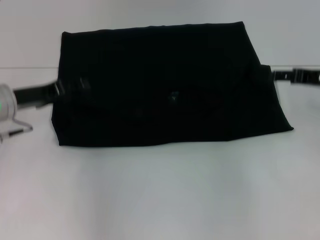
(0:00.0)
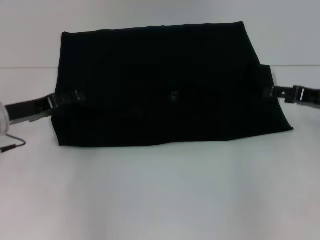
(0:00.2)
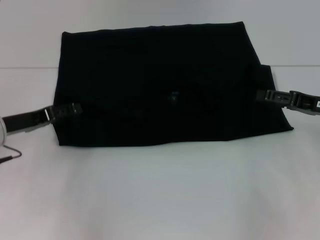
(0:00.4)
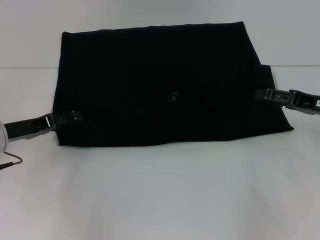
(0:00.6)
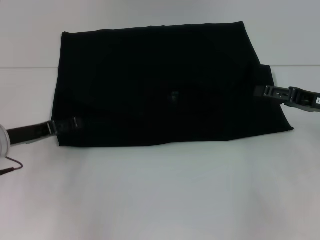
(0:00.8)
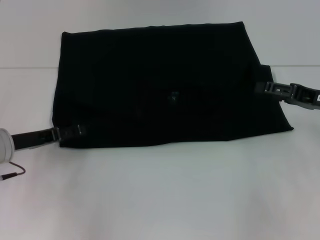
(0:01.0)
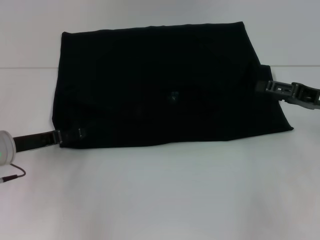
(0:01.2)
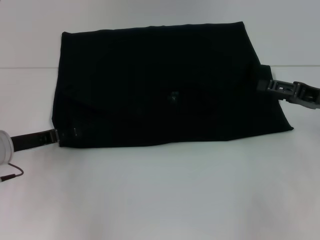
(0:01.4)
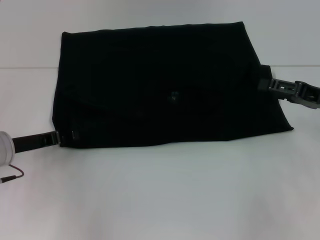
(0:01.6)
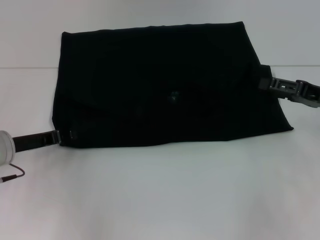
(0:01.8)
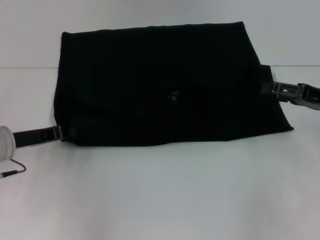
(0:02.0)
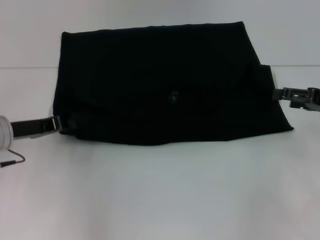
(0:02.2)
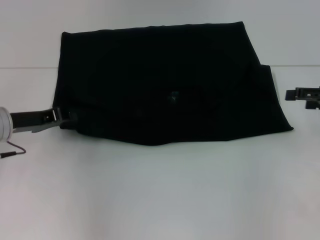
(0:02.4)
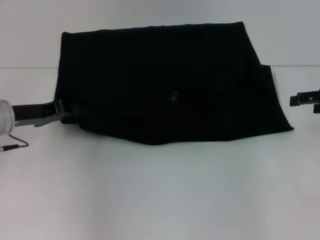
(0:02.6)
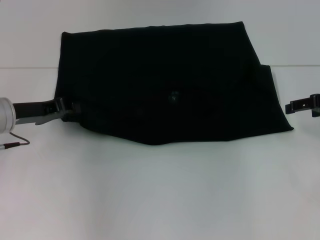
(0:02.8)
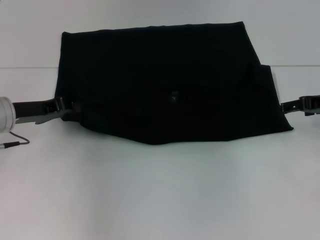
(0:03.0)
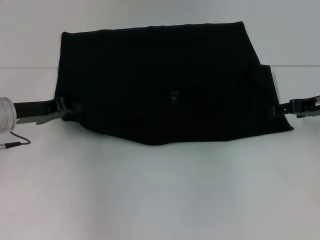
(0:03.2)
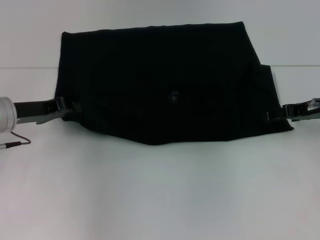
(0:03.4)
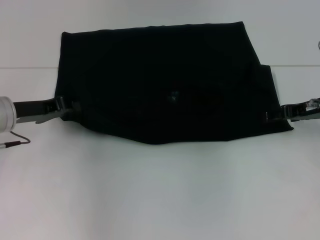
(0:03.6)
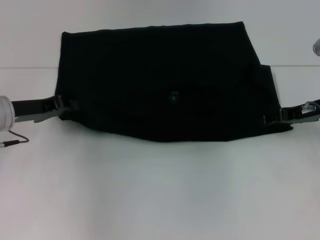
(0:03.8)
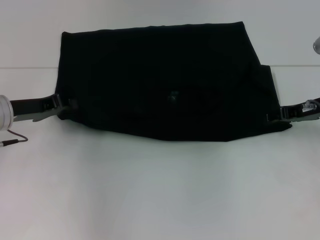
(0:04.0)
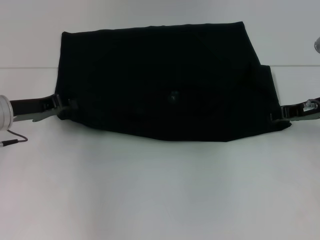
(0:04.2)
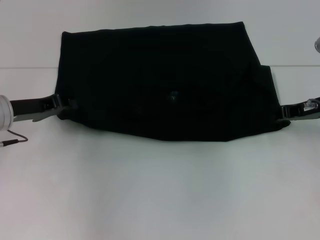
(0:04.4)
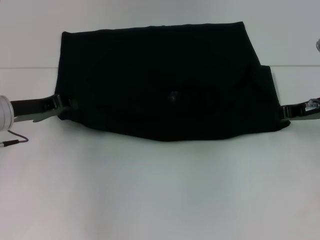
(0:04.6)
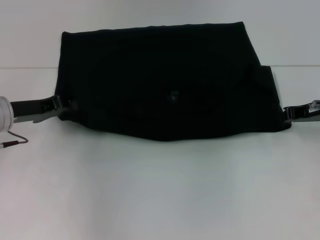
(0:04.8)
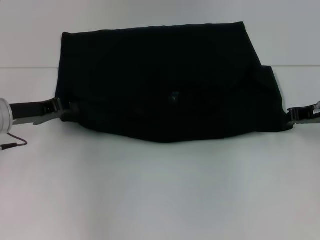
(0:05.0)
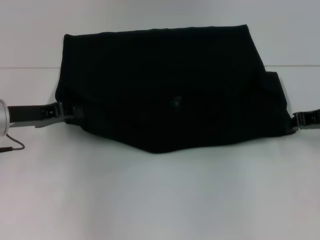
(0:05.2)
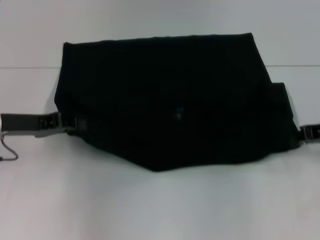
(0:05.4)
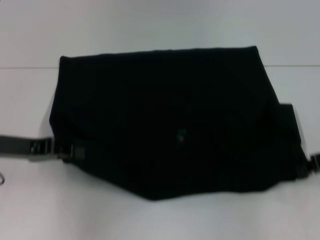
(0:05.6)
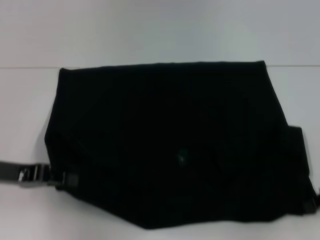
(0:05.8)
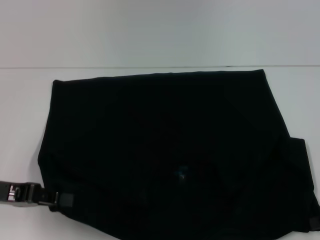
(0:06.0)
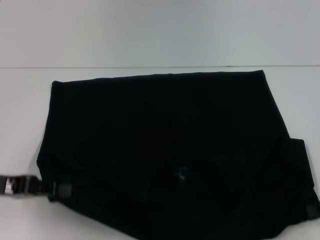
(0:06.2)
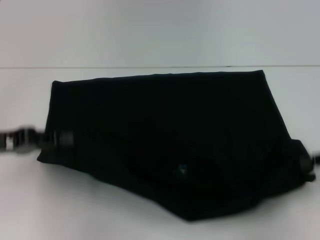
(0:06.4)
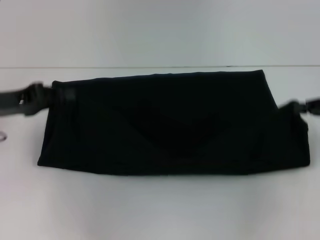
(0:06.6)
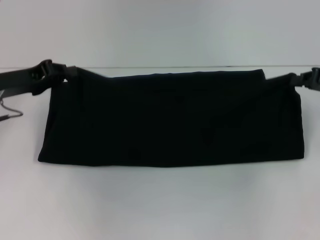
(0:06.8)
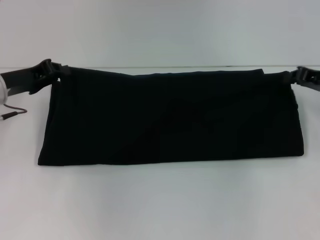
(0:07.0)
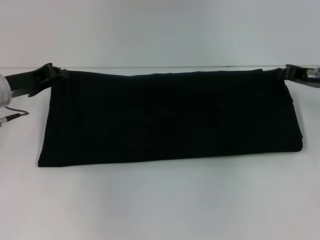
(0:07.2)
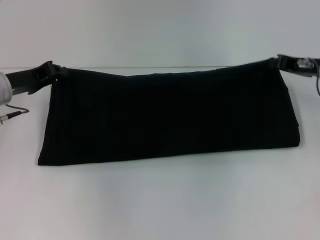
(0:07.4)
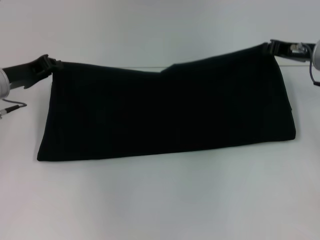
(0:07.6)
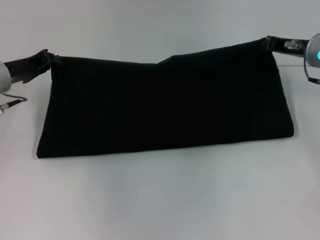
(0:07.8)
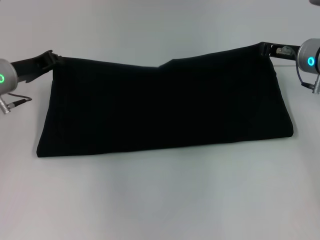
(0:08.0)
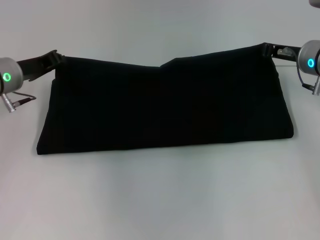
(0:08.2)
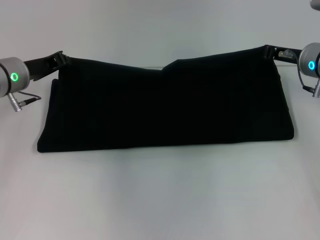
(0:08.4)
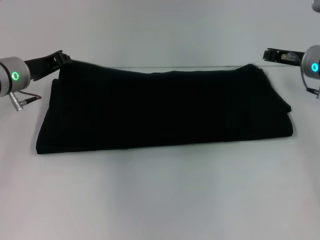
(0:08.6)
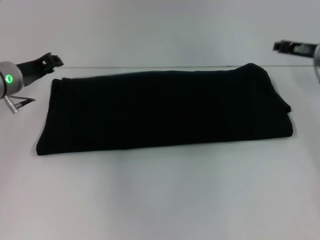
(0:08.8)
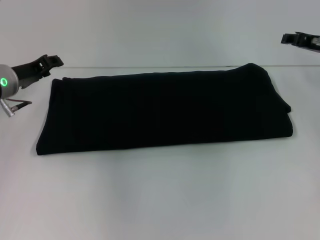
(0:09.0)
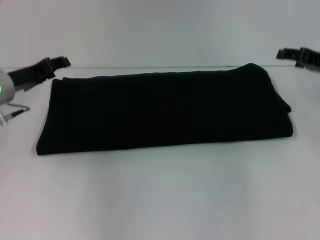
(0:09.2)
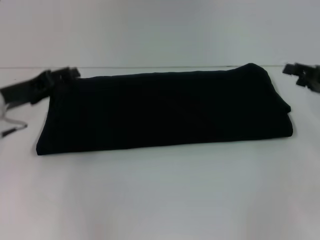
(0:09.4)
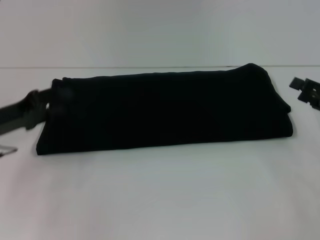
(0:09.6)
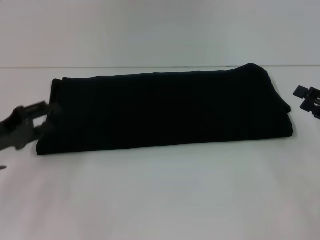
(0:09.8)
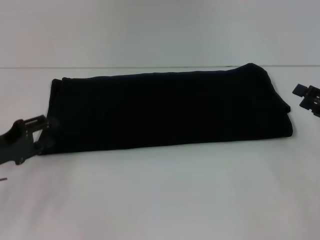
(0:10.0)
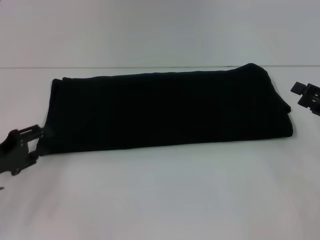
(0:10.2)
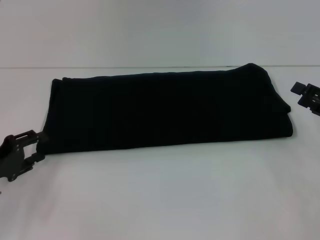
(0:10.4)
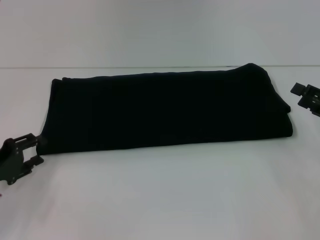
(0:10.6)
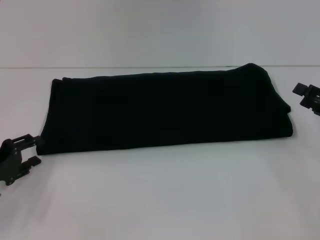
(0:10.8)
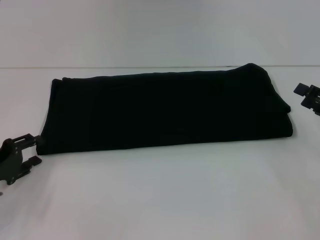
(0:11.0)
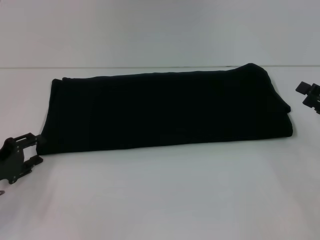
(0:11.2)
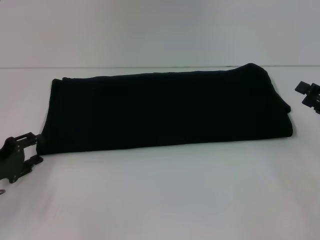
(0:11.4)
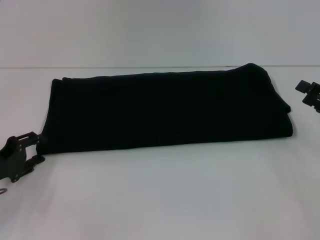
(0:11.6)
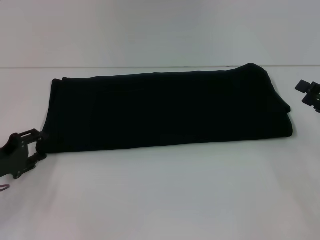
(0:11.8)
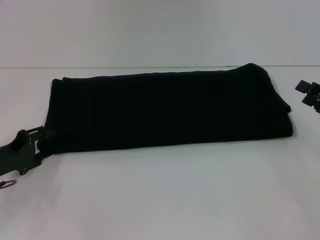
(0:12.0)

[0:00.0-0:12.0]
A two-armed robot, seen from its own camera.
Step, 0:00.6 to 0:05.8: Pull the clothes with your left hand.
Step, 0:00.6 to 0:05.8: Pull the clothes with your right hand.
Step, 0:06.0 to 0:08.6: Fold the clothes with your right hand.
0:00.0 to 0:01.6: The left gripper is displaced downward by some 5 cm; the right gripper moves some 5 cm.
0:01.6 to 0:03.0: The right gripper moves approximately 5 cm. Meanwhile the left gripper changes place by approximately 5 cm, and closes up.
0:03.0 to 0:04.4: The right gripper closes.
0:04.4 to 0:06.0: The right gripper heads backward and to the right, covering roughly 15 cm, and closes its fingers, while the left gripper goes some 10 cm backward.
0:06.0 to 0:07.6: The left gripper travels forward by approximately 15 cm, while the right gripper heads forward and to the left, covering some 20 cm.
0:07.6 to 0:09.0: There are only small adjustments of the grippers.
0:09.0 to 0:10.4: The two grippers go roughly 15 cm backward and downward. The left gripper opens up. Meanwhile the right gripper opens its fingers.
0:10.4 to 0:12.0: The grippers move only a little.

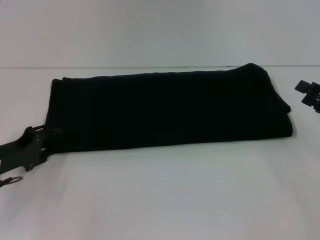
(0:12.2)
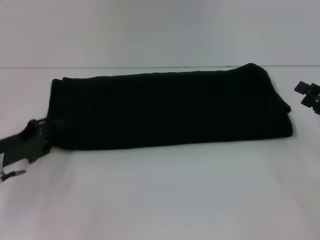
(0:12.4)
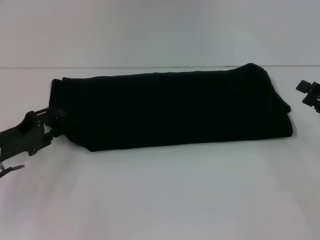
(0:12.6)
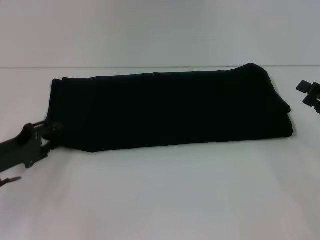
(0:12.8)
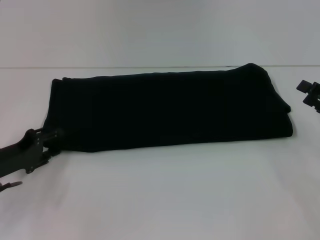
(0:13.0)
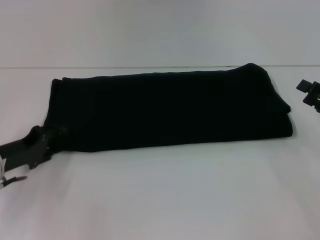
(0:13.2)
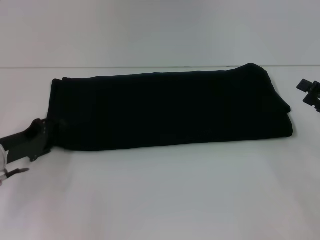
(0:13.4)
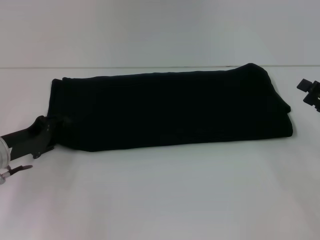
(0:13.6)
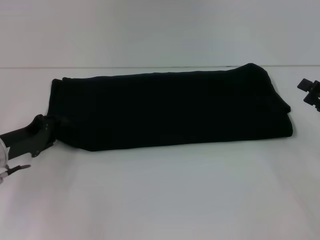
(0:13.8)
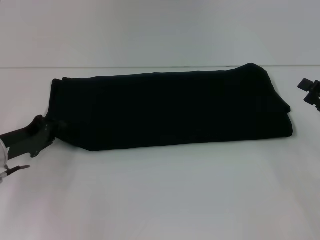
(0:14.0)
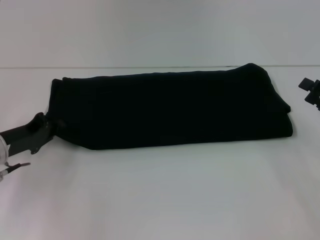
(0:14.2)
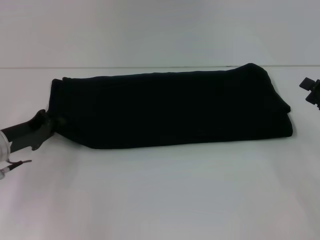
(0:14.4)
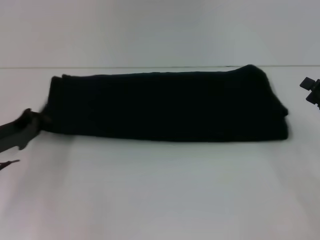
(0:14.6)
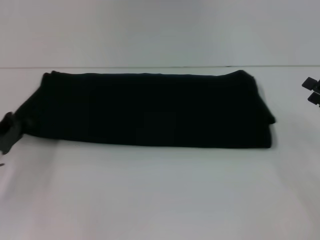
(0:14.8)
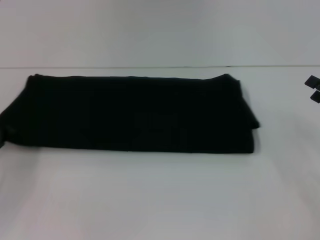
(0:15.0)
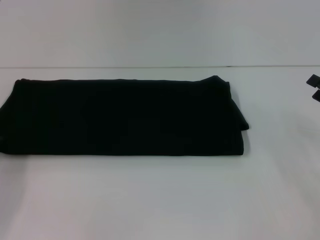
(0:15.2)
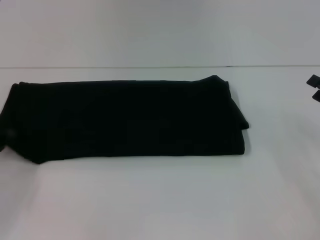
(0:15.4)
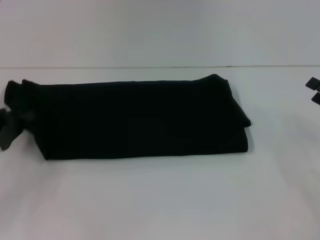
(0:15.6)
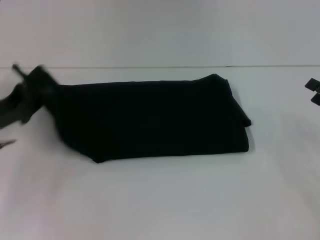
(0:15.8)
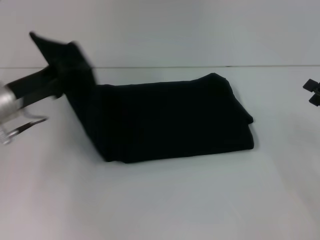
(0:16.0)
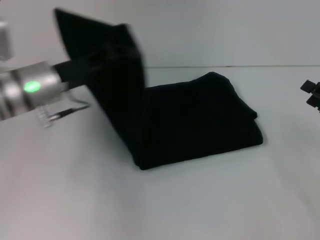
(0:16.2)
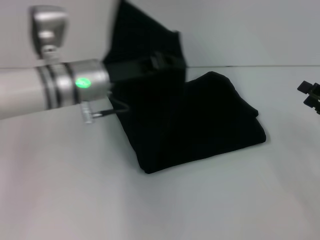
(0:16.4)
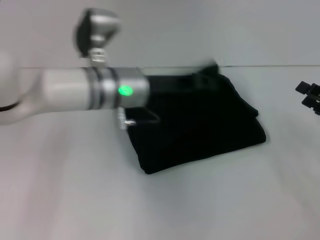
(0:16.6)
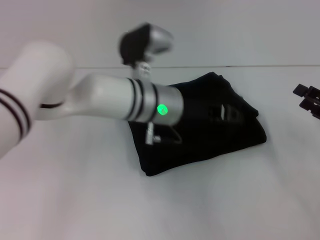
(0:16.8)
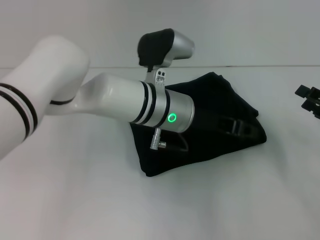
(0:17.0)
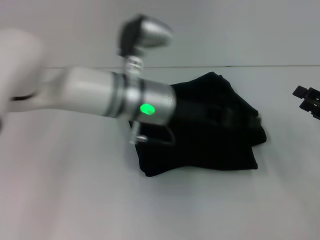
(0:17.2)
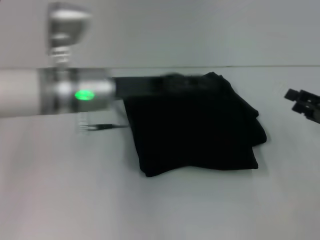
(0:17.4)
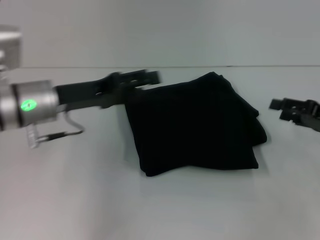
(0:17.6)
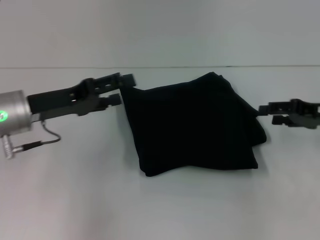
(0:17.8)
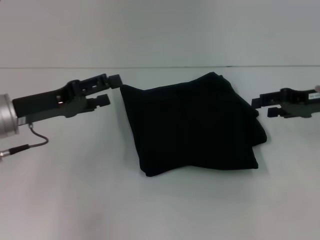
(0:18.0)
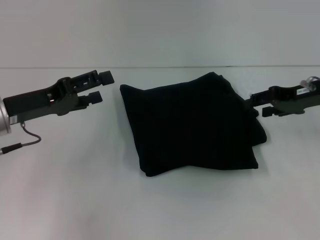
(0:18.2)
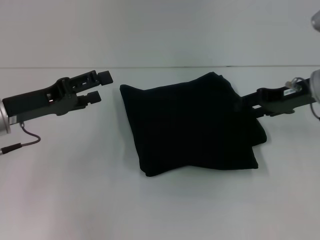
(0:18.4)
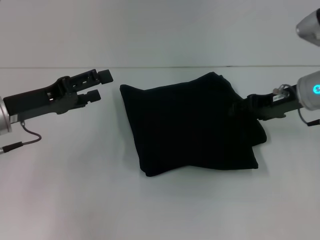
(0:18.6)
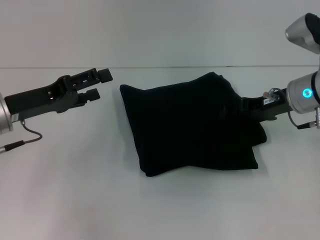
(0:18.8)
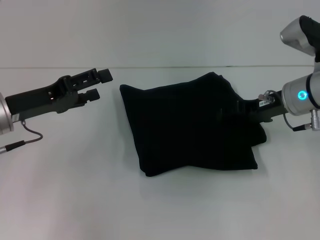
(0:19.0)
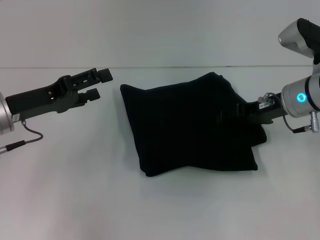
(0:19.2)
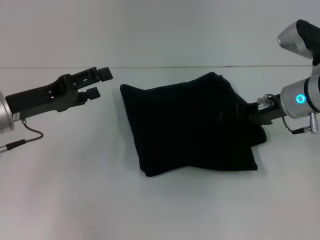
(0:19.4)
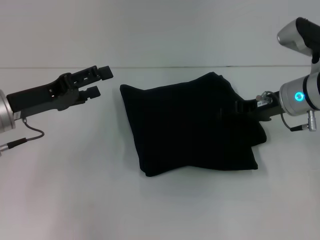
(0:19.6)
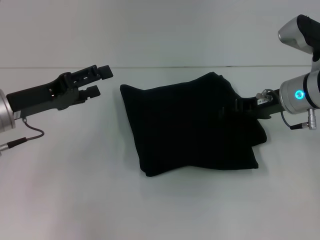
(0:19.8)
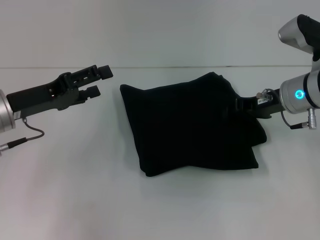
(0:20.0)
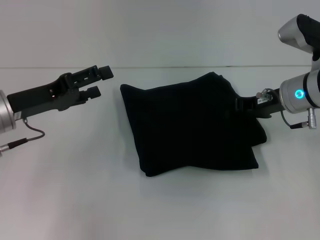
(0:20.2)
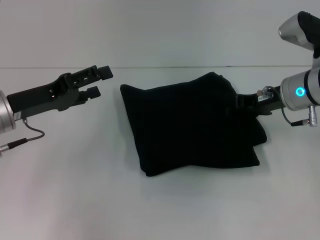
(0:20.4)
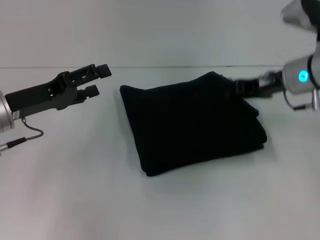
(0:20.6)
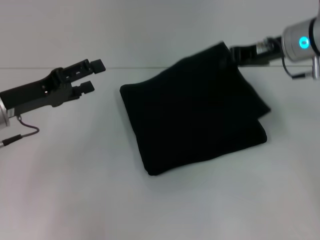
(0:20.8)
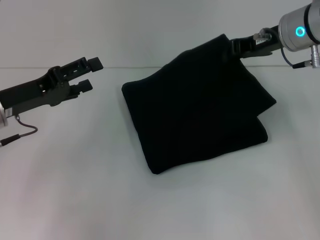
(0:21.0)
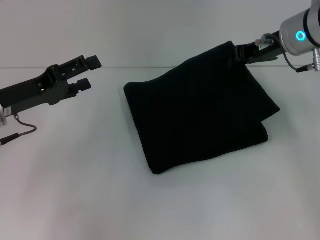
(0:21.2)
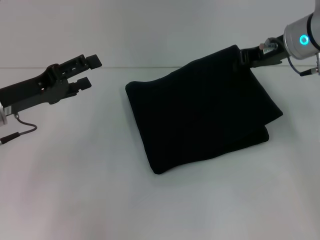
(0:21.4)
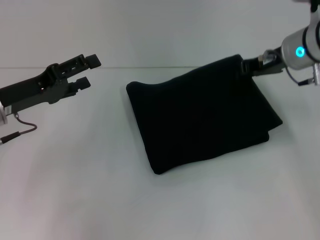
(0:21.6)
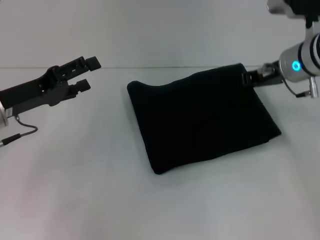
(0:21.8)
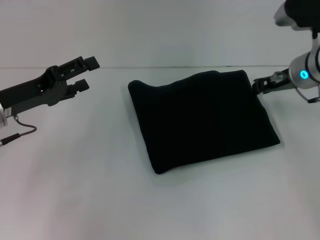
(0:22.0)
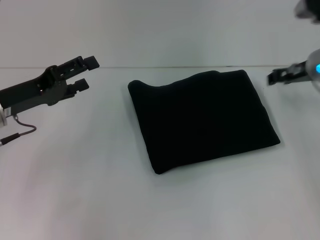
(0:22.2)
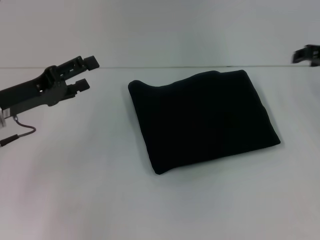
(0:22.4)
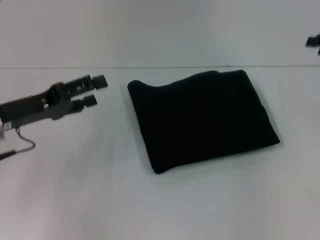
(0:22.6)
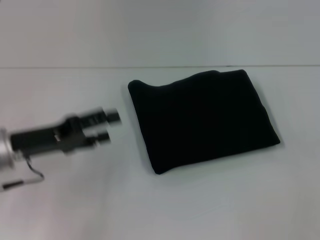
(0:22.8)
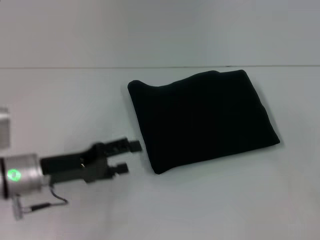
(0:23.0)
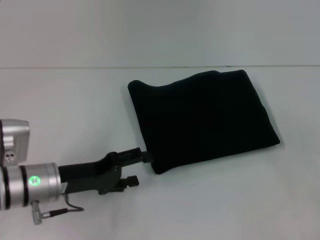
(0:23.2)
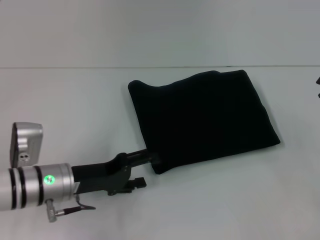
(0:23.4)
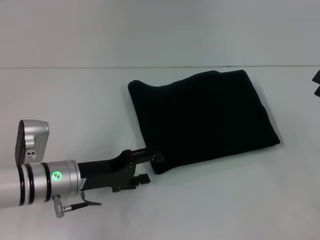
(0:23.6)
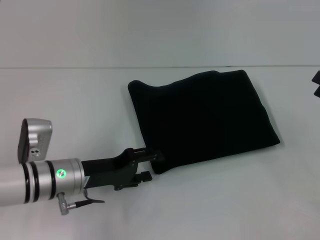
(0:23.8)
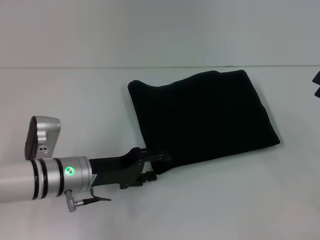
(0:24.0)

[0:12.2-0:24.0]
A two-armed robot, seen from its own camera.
Step, 0:12.2 to 0:17.0: Fold the clothes with your left hand.
0:12.2 to 0:13.6: The grippers stay close to where they were, moving slightly.
0:13.6 to 0:15.2: The left gripper travels to the left by roughly 5 cm, and closes.
0:15.2 to 0:16.6: The left gripper goes some 30 cm to the right and forward.
0:16.6 to 0:18.2: The left gripper shifts roughly 15 cm to the left, and opens up, while the right gripper shifts roughly 15 cm forward, upward and to the left.
0:18.2 to 0:19.6: The right gripper travels to the left by about 5 cm.
0:19.6 to 0:21.0: The right gripper heads upward, covering approximately 10 cm, and closes up.
0:21.0 to 0:22.6: The right gripper shifts about 15 cm to the right, and opens.
0:22.6 to 0:24.0: The left gripper is displaced to the right and downward by about 15 cm; the right gripper is displaced backward and downward by roughly 10 cm.
